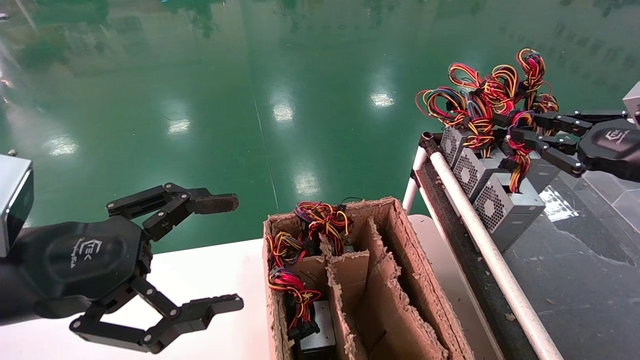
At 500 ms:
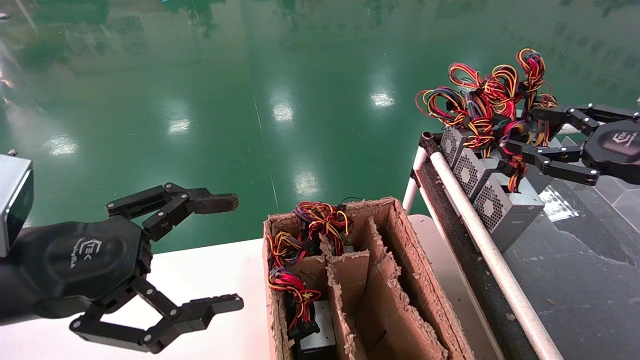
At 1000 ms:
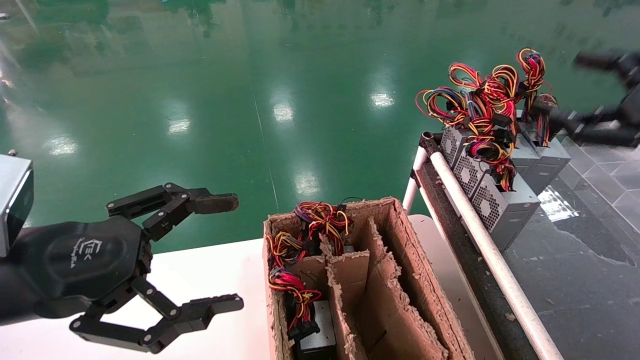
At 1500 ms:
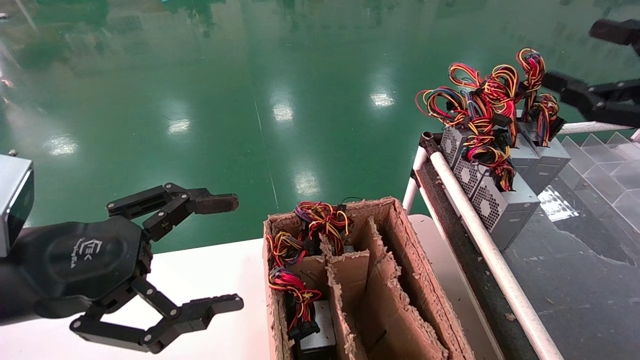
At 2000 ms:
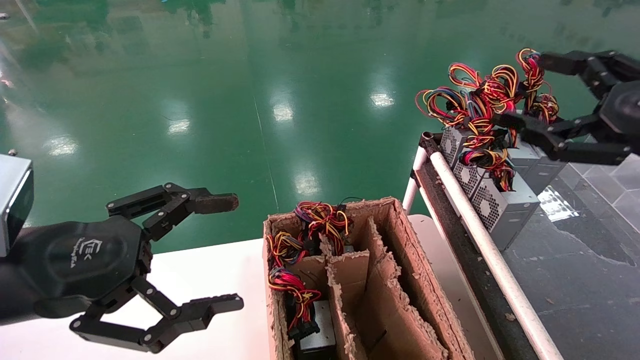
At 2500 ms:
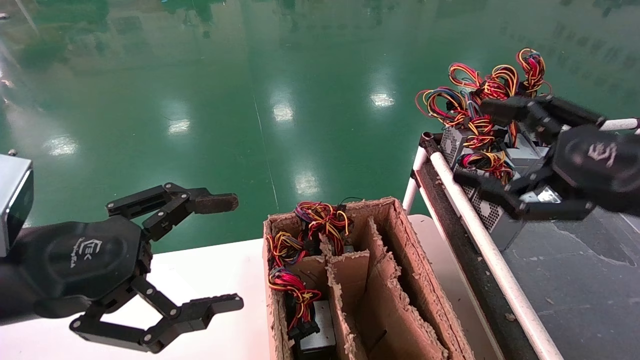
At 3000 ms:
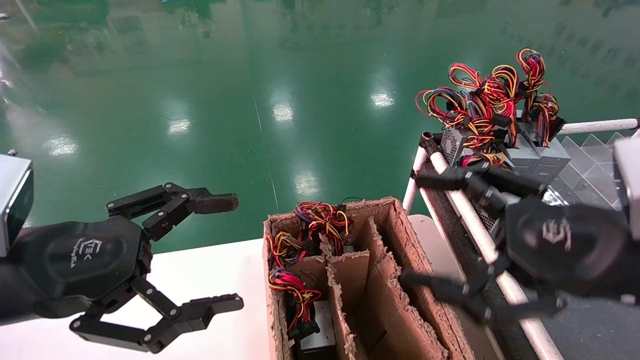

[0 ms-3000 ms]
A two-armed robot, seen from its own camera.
0 ms to 1500 ms: The right gripper shifts approximately 5 cm backward, and opens.
1500 ms to 3000 ms: The right gripper is displaced to the left, downward and backward by about 20 cm.

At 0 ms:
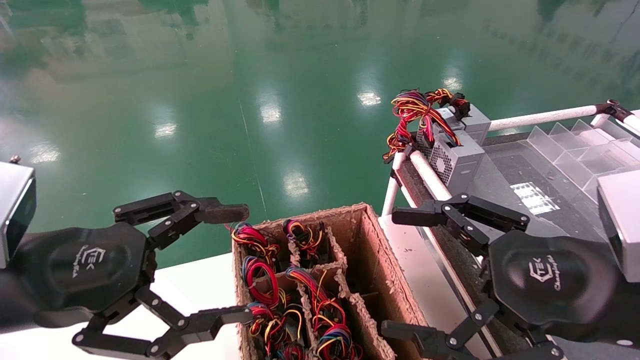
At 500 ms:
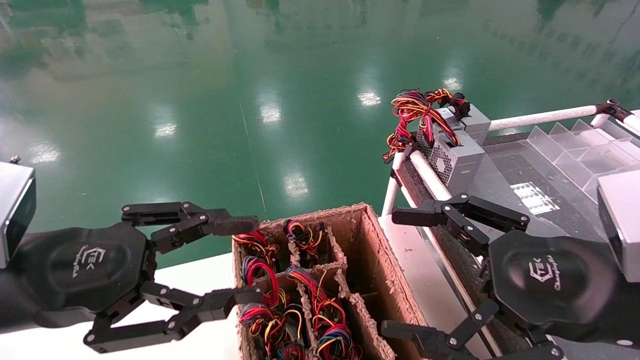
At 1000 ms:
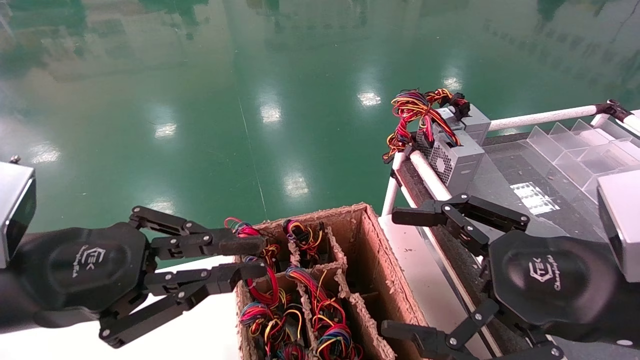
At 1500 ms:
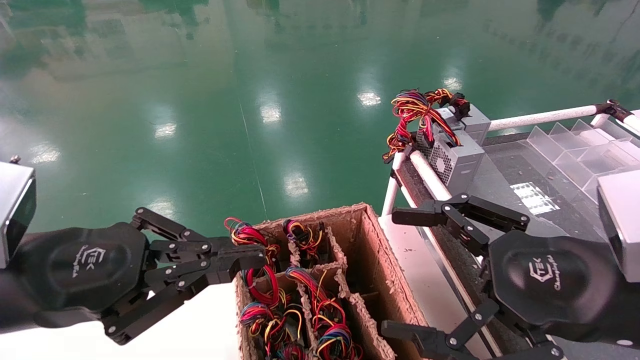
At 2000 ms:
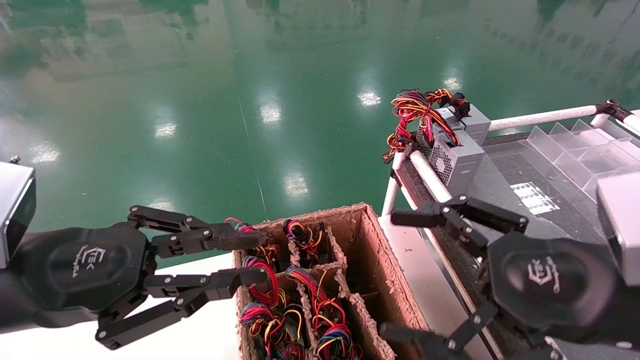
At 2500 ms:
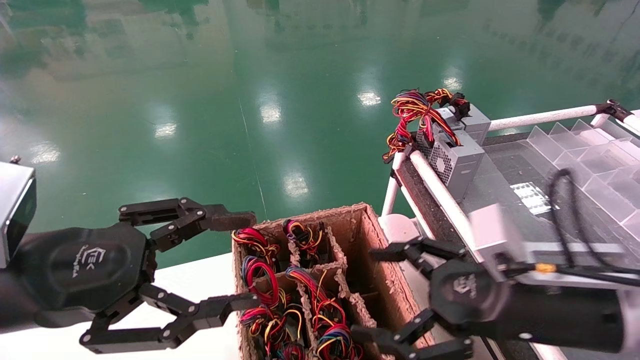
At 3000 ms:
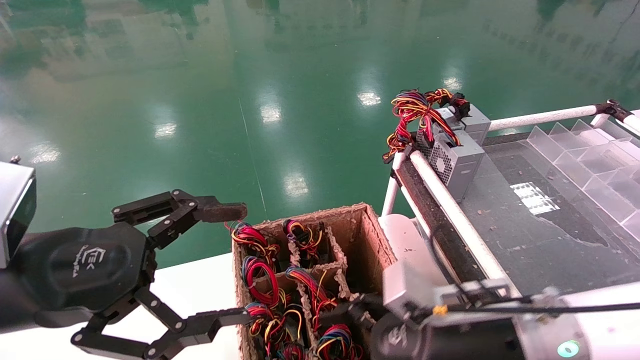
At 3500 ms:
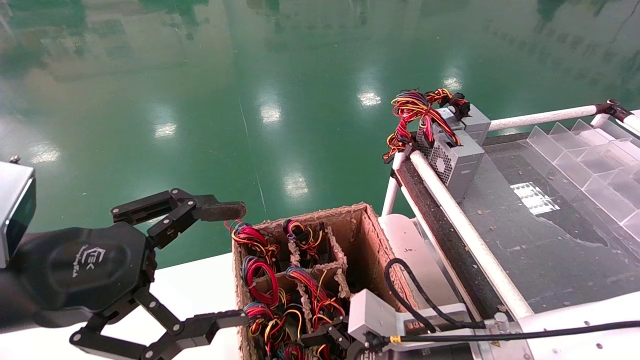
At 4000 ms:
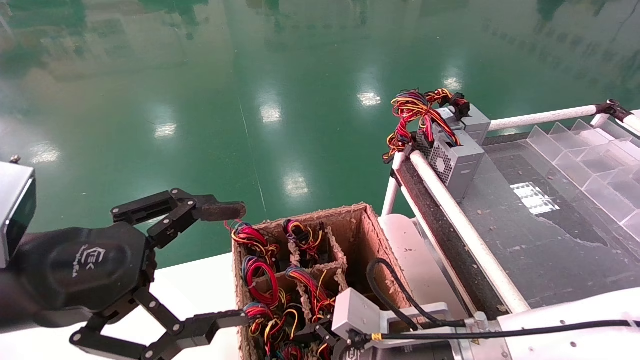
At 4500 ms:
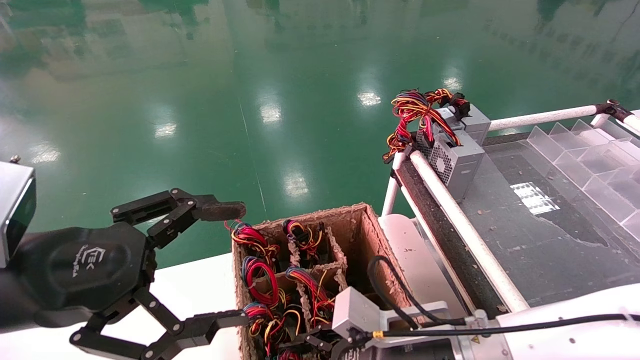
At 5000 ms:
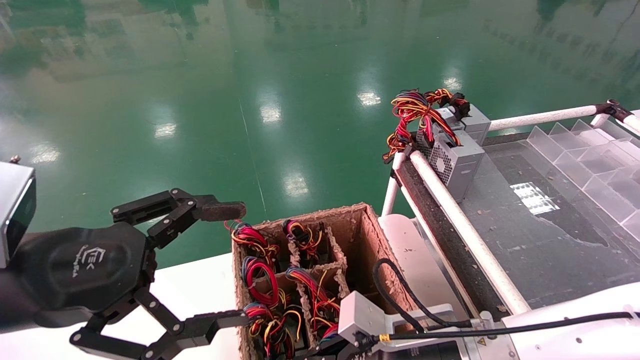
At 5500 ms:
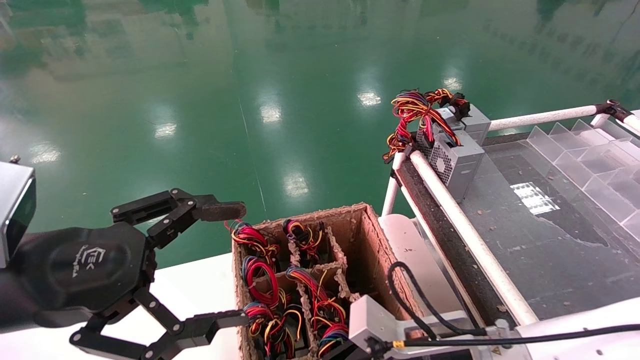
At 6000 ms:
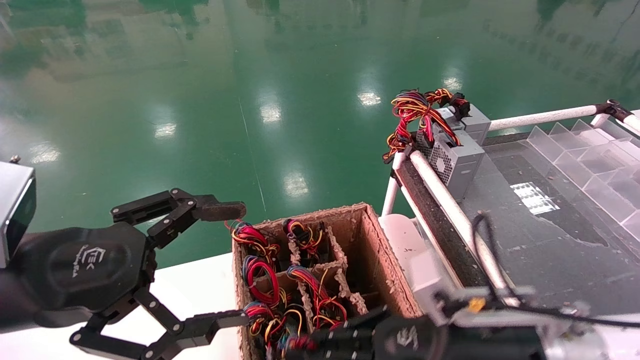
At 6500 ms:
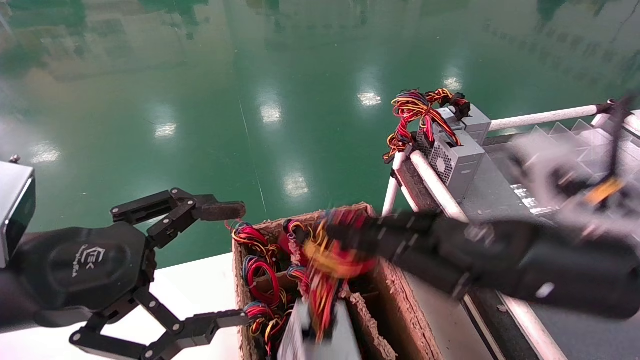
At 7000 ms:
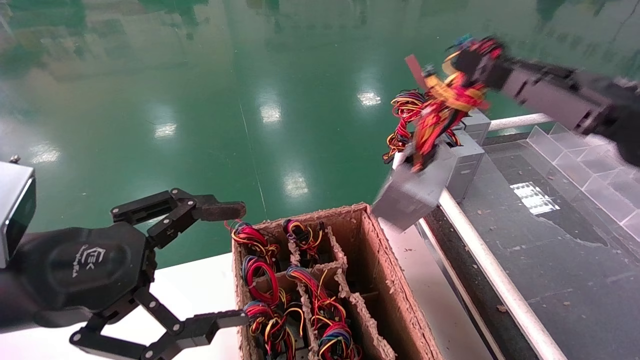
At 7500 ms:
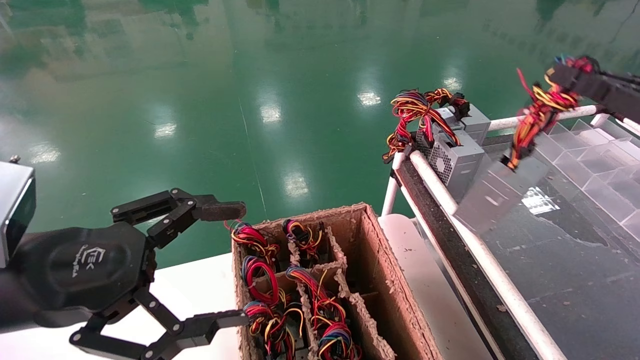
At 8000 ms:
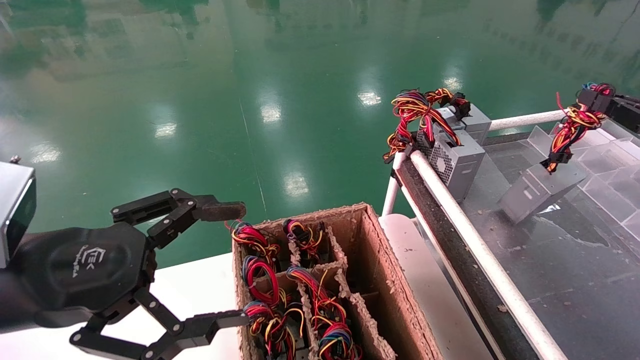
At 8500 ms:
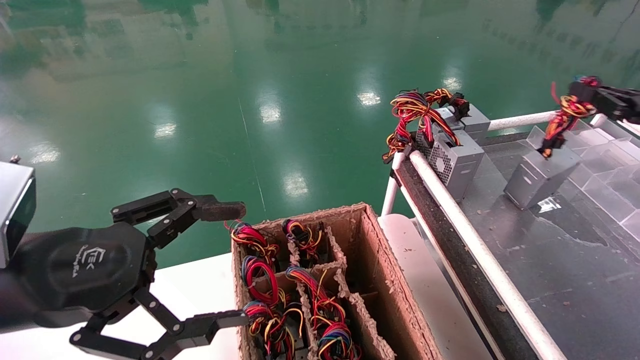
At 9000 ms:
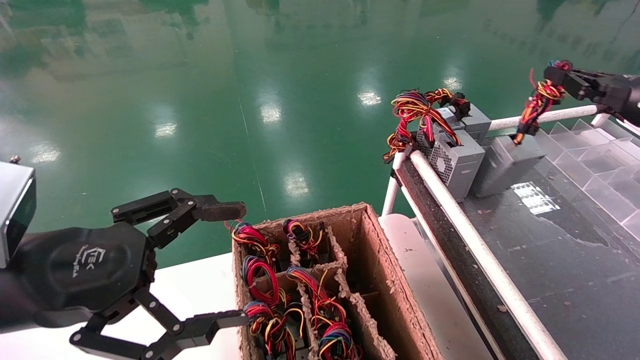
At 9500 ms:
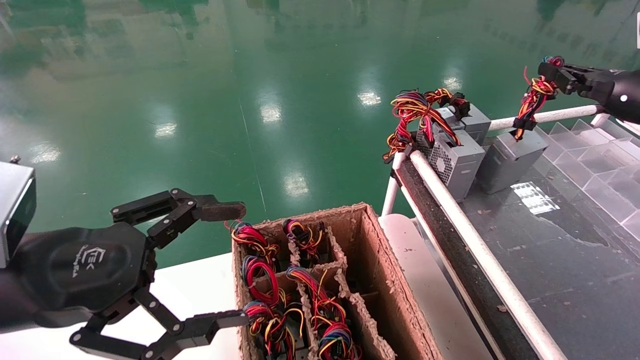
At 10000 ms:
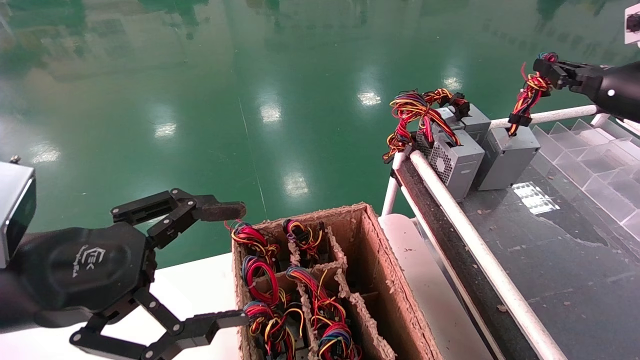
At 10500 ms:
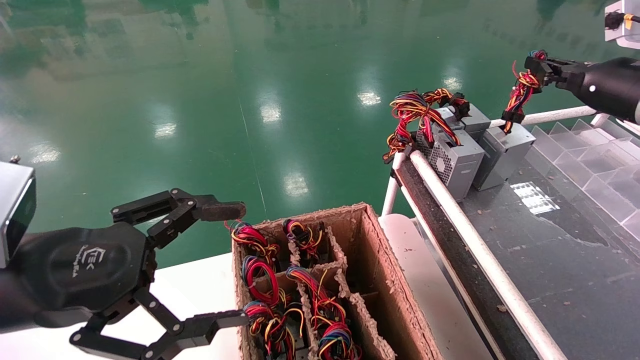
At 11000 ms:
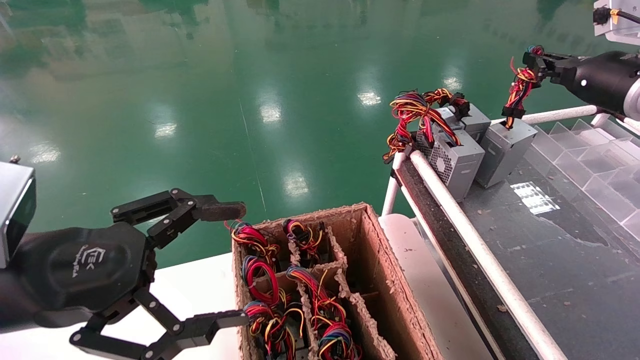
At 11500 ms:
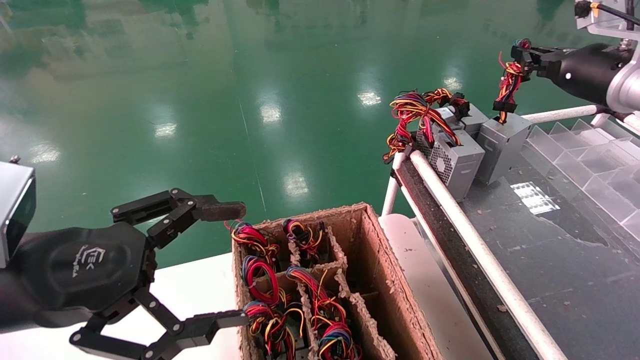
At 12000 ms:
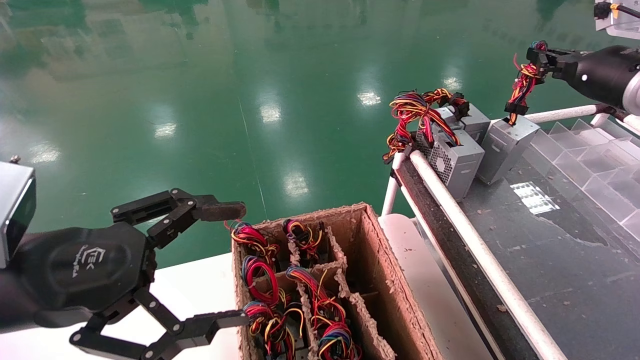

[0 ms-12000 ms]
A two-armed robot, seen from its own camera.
Step, 1500 ms to 5500 ms: Grab and lift the power supply from the large box.
0 ms to 2000 ms: The left gripper closes up.
2000 ms to 4000 ms: The left gripper opens its fingers. Meanwhile the right gripper heads downward, to the left and forward, covering about 20 cm.
4000 ms to 6000 ms: The right gripper shifts roughly 10 cm upward and to the right, and closes.
6000 ms to 8000 ms: The right gripper shifts approximately 35 cm to the right and upward.
8000 ms to 10000 ms: The right gripper travels forward and to the left by roughly 10 cm.
10000 ms to 12000 ms: The grippers stay close to where they were, moving slightly.

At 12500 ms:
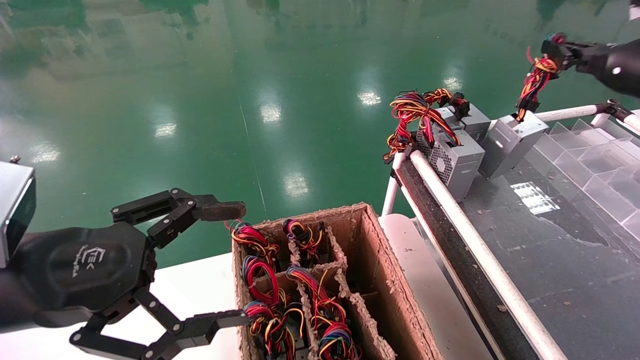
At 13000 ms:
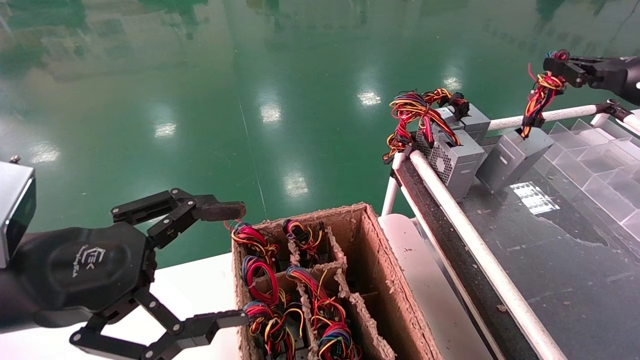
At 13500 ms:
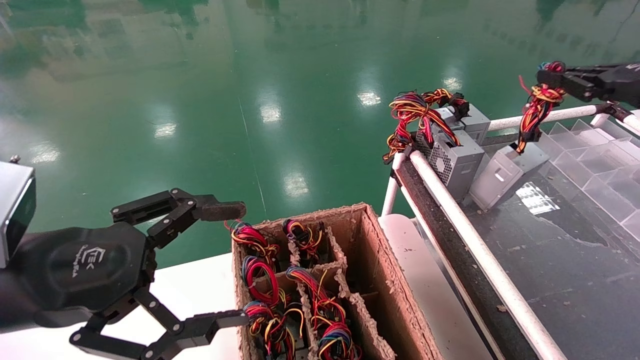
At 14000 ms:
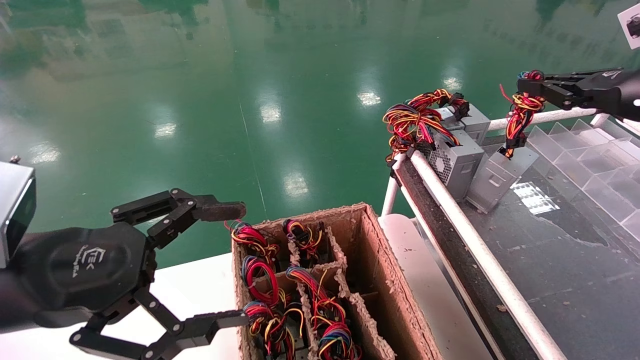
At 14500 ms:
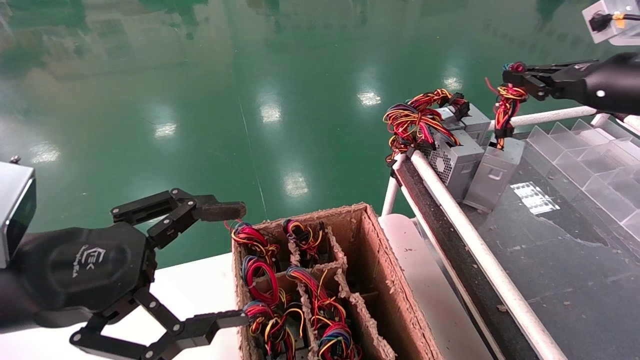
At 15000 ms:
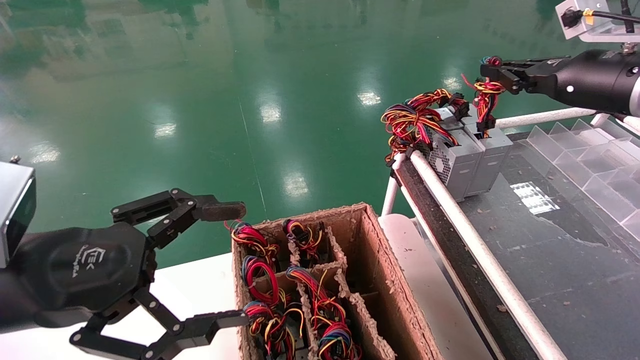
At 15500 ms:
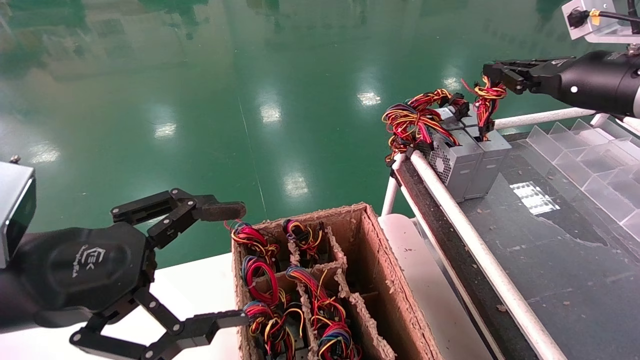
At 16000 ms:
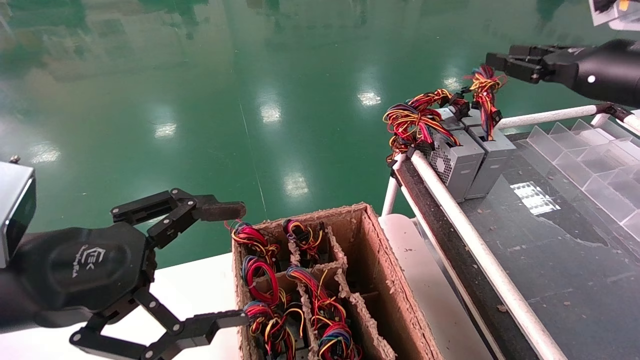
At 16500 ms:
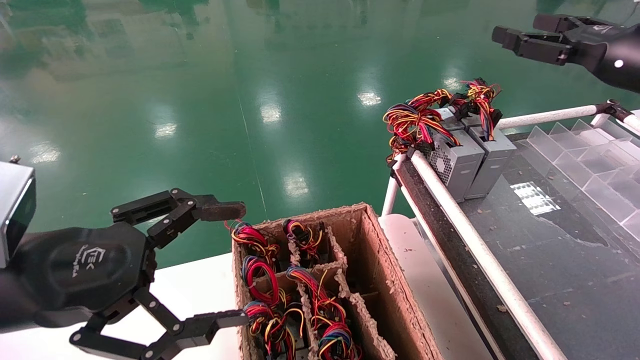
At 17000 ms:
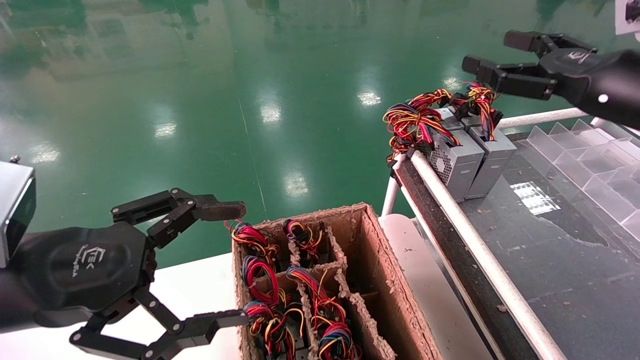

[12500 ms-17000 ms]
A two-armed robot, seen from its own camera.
Step, 12500 ms to 15500 ms: Place the power supply on the operating table.
12500 ms to 14500 ms: The grippers make only small movements.
14500 ms to 17000 ms: The right gripper changes place by about 5 cm, and opens.
